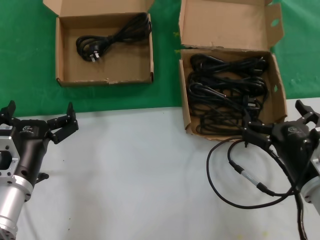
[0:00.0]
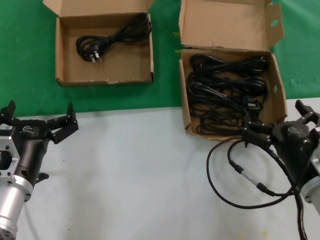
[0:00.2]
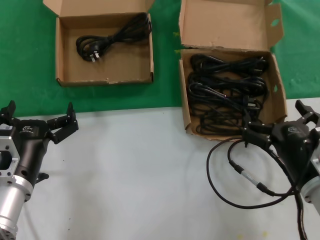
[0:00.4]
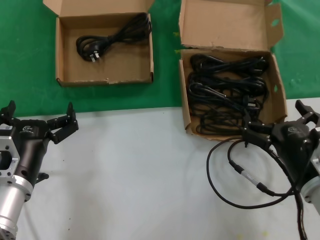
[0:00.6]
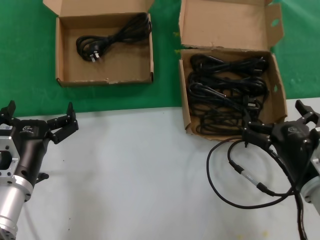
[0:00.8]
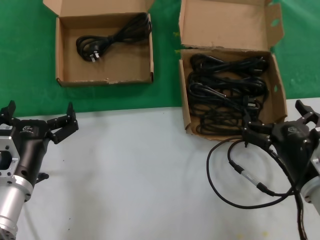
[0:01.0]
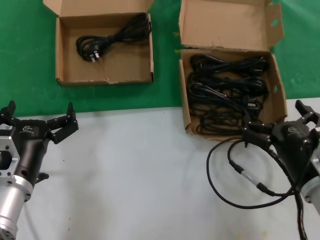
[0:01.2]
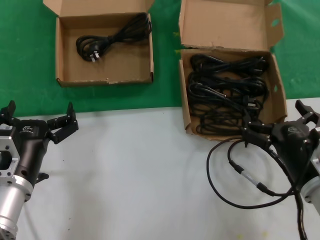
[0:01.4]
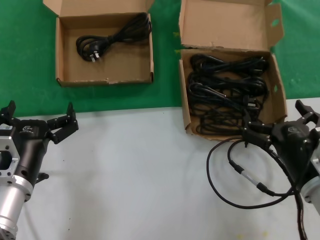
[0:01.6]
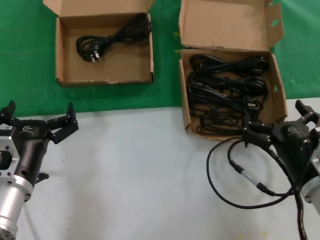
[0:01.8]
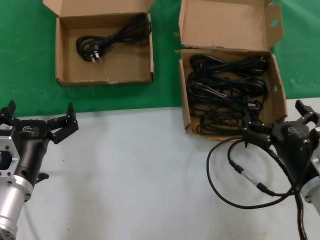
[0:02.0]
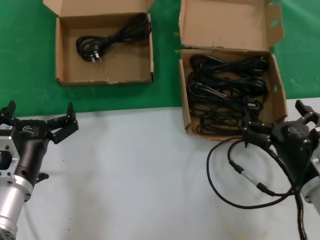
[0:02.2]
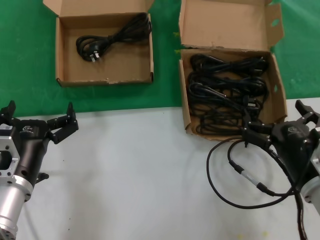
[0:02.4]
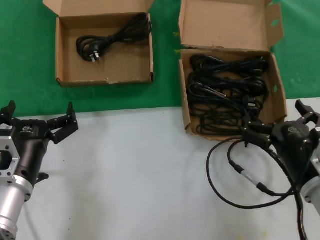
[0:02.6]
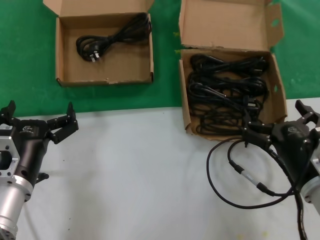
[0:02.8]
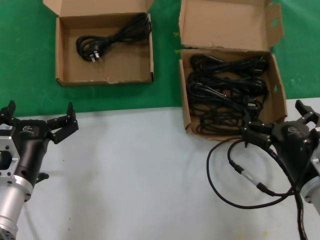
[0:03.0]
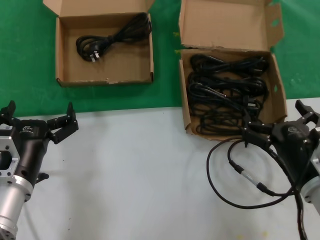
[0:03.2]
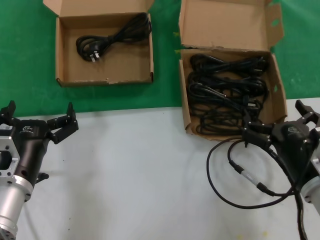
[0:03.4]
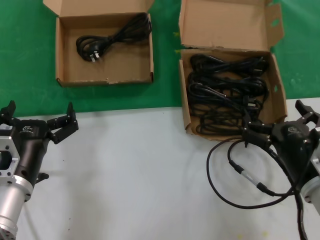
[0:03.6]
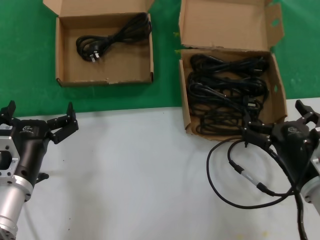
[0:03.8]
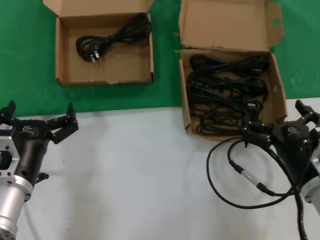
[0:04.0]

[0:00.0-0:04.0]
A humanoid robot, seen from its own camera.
Task of the whole recording: take the parts from the box containing them and put them into an empty box.
0:00.0 to 0:04.0: The two hands keep their place.
